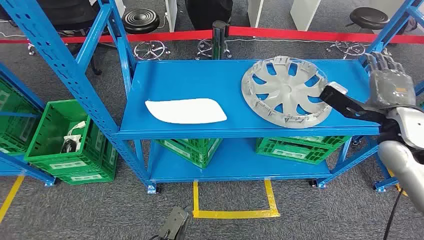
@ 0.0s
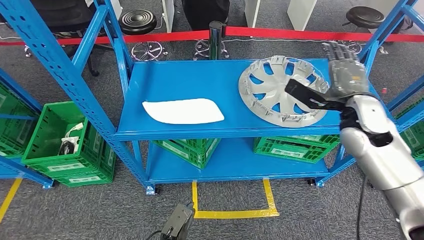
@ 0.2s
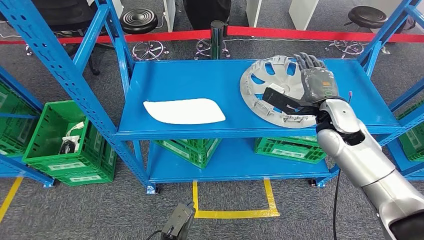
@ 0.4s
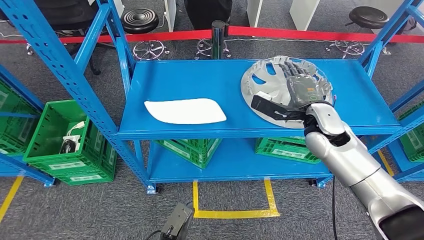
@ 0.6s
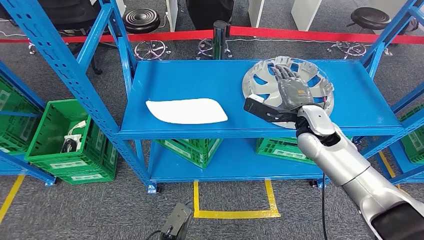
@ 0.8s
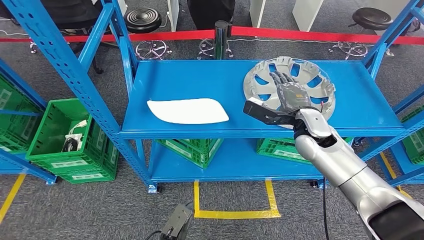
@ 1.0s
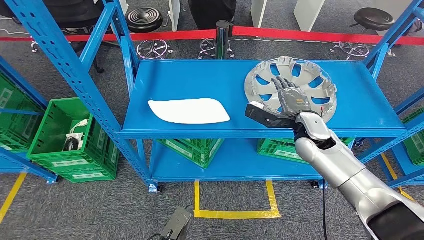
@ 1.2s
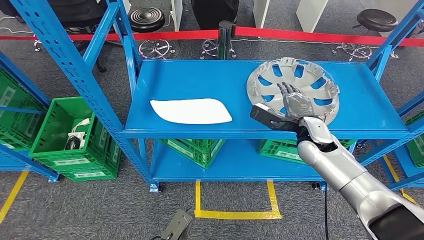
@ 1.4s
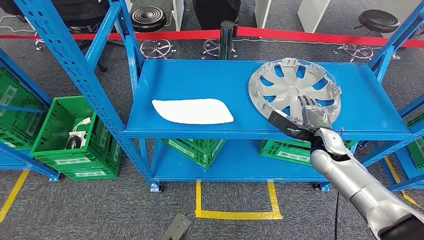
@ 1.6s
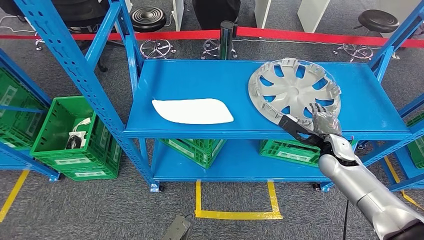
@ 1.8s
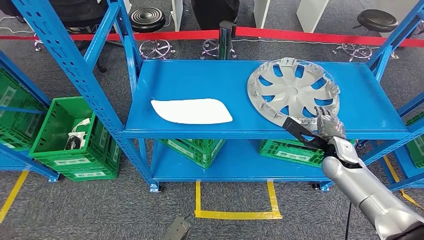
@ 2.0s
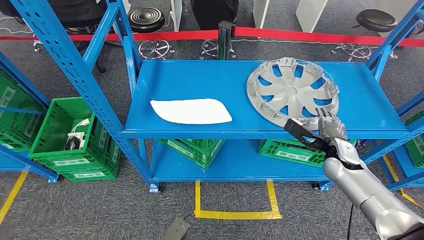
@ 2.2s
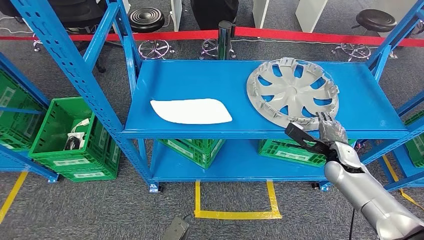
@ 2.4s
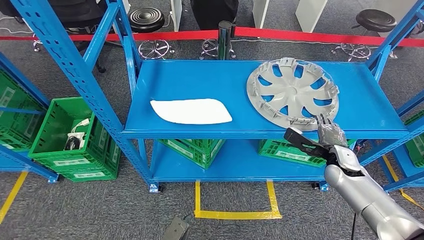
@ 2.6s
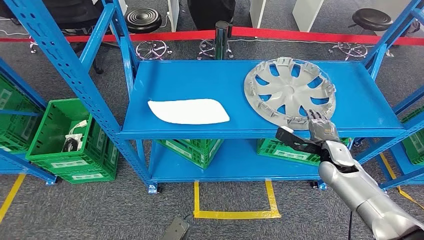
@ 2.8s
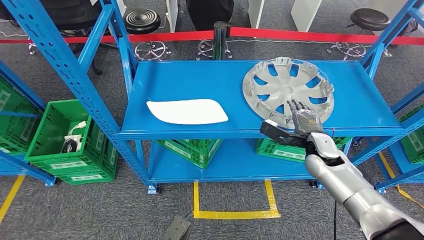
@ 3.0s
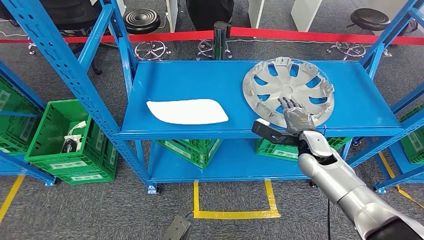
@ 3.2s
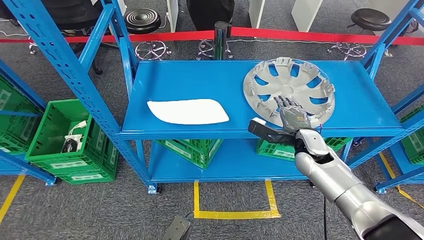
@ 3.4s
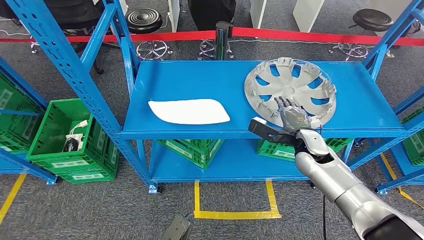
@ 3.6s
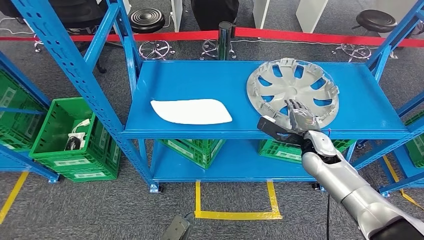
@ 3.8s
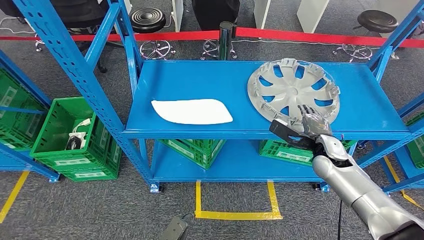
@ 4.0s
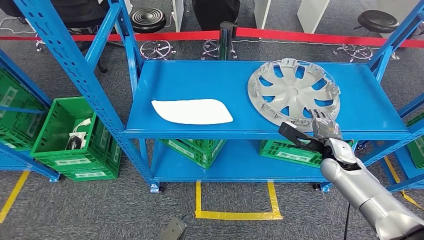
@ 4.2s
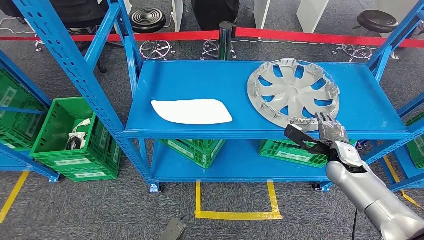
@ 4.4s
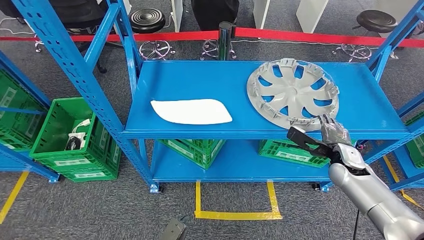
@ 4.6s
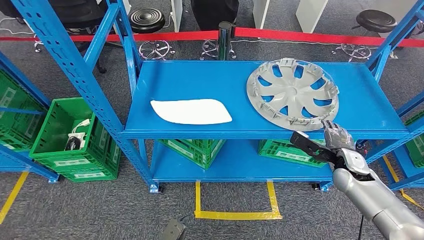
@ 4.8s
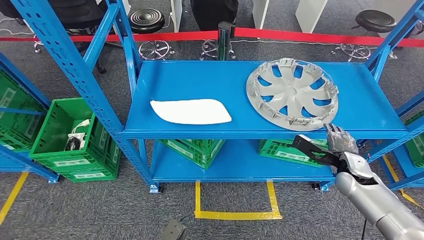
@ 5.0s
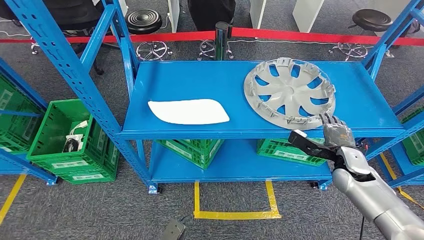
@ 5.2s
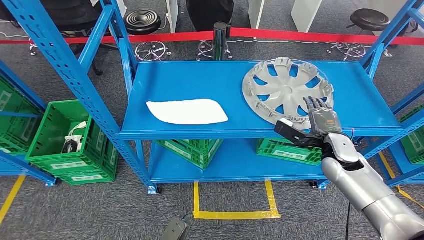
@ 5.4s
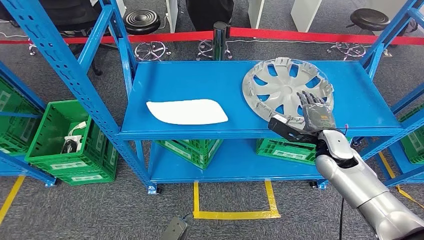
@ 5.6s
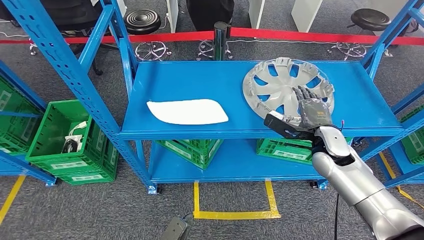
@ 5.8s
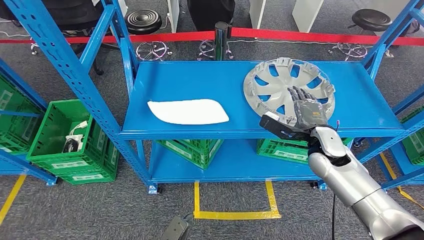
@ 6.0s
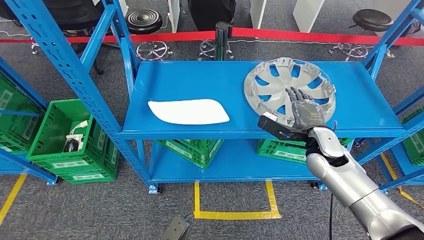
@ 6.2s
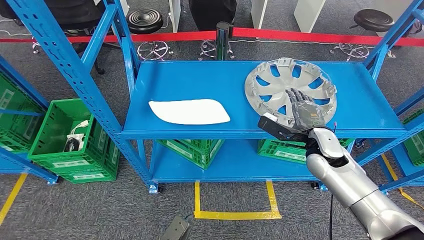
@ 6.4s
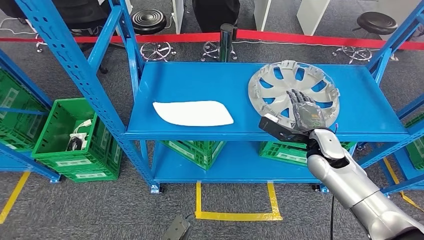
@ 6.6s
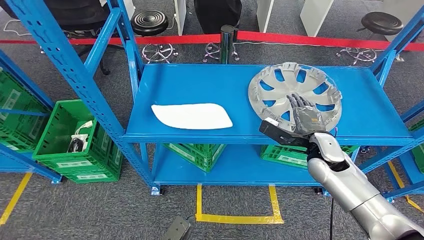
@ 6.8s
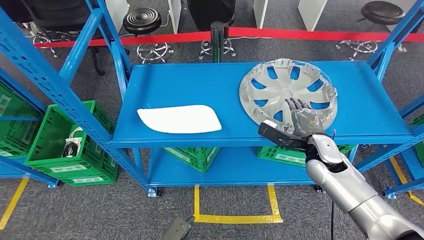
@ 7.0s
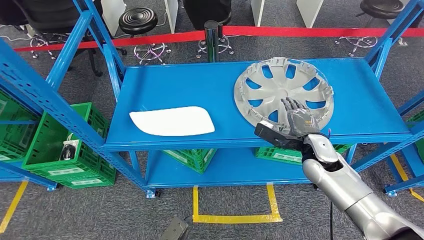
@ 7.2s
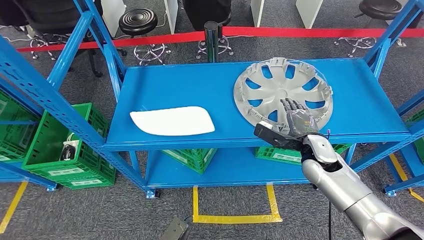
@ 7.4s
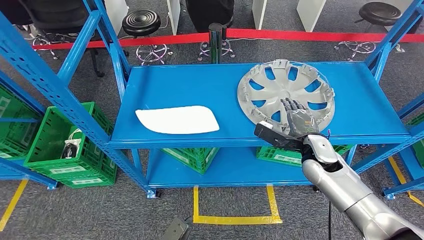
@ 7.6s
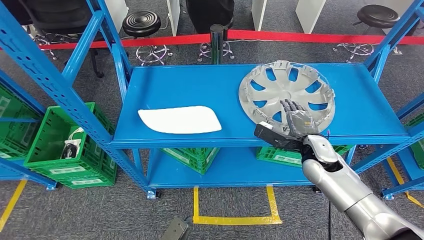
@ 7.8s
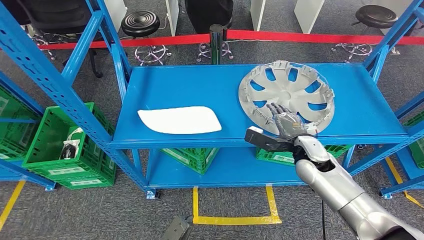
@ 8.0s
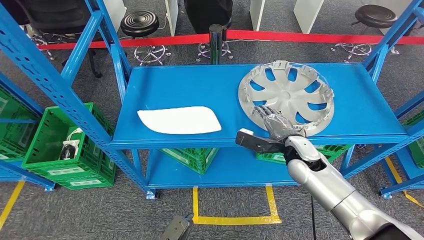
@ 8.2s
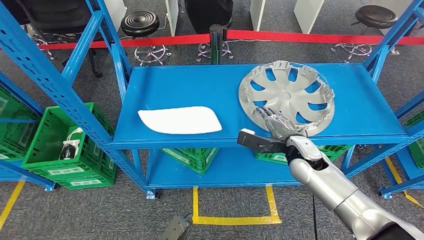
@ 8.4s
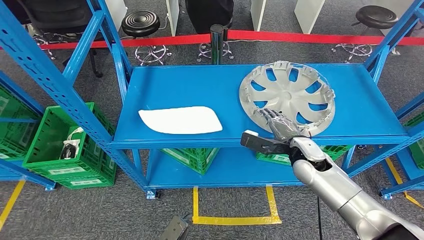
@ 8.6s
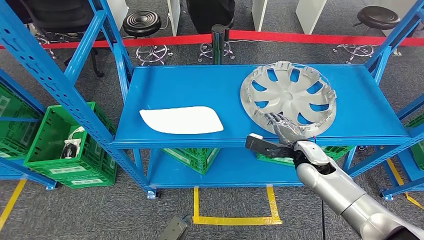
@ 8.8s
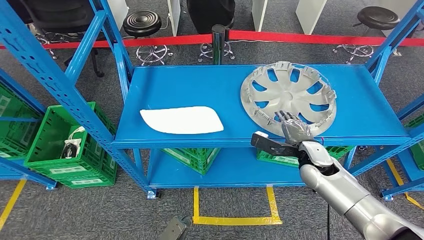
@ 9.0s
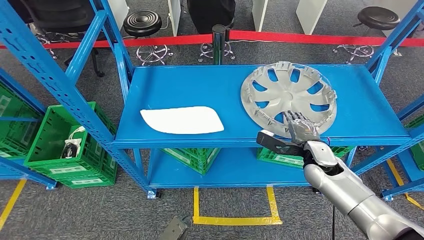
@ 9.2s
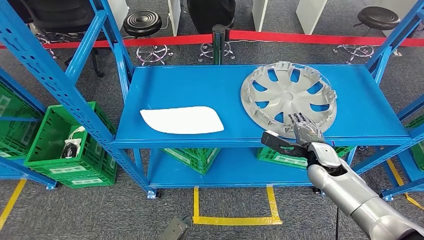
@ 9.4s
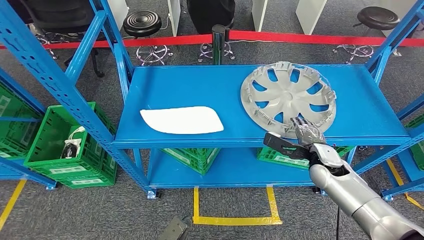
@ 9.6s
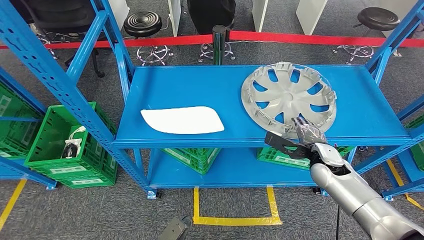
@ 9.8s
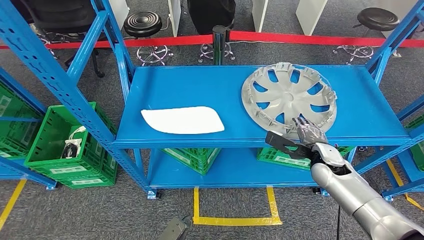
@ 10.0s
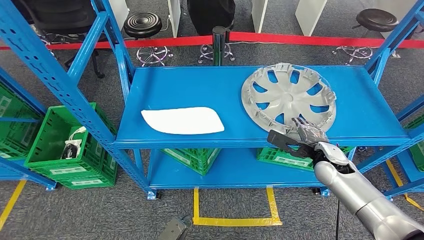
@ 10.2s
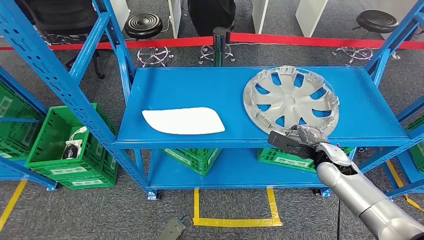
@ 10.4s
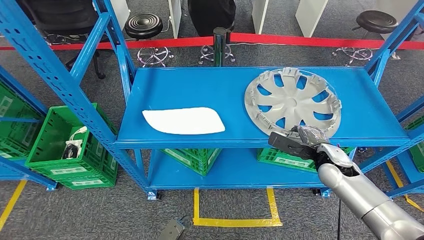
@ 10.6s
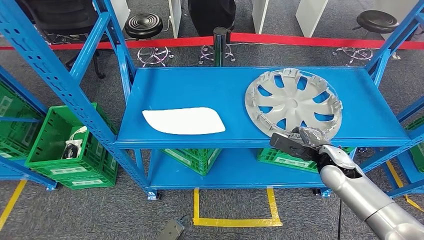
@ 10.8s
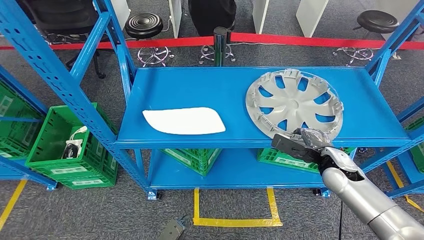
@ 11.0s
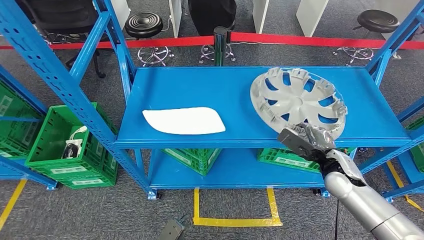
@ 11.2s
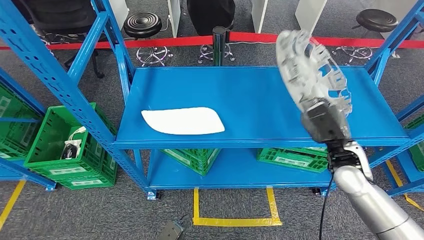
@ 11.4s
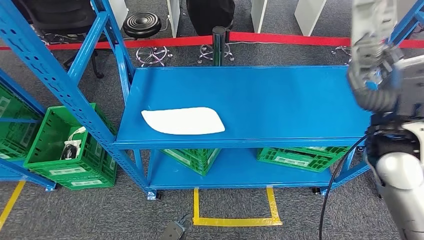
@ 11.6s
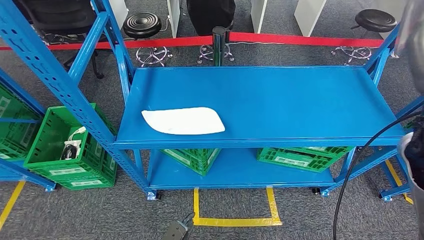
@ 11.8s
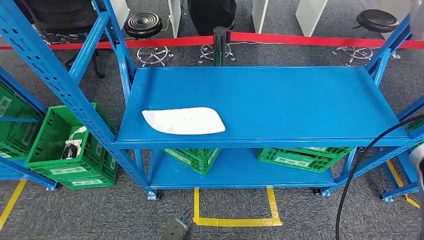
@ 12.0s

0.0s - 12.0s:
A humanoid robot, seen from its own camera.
7.6s - 10.4s: There are only small adjustments of the hands.
10.4s - 12.0s: The right hand travels upward by roughly 30 cm.

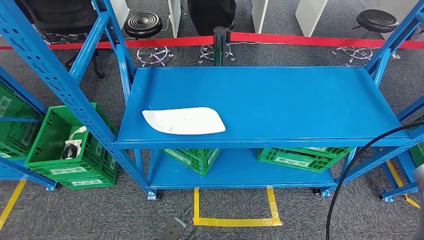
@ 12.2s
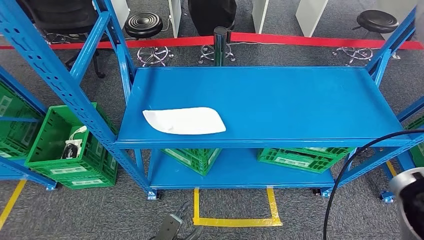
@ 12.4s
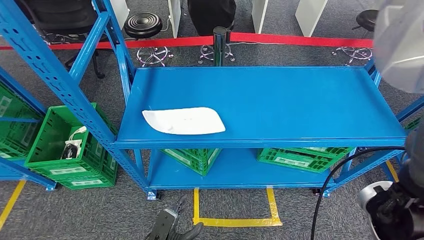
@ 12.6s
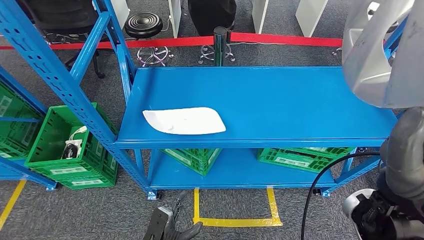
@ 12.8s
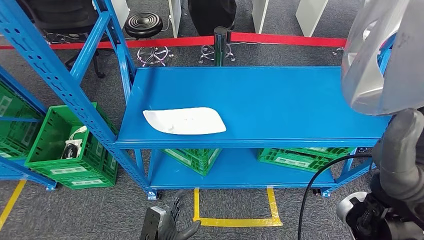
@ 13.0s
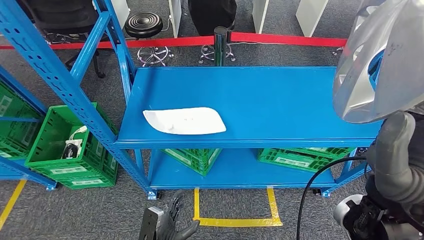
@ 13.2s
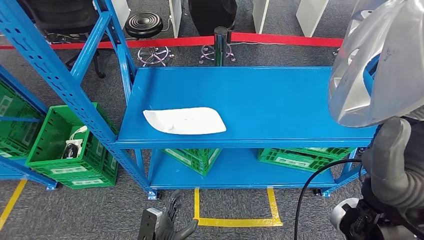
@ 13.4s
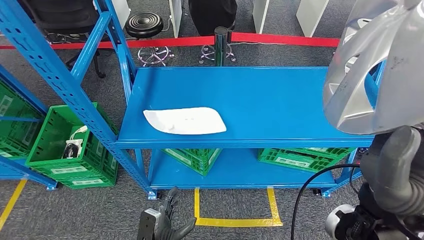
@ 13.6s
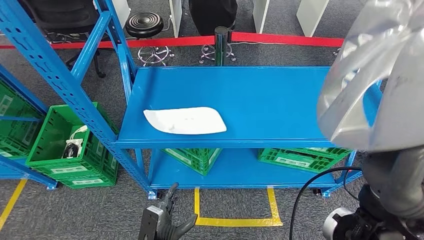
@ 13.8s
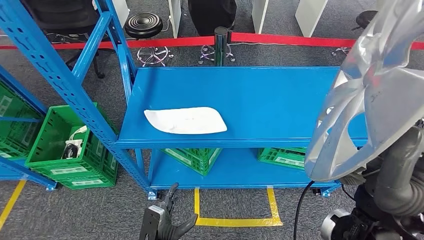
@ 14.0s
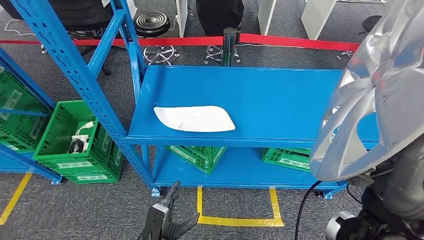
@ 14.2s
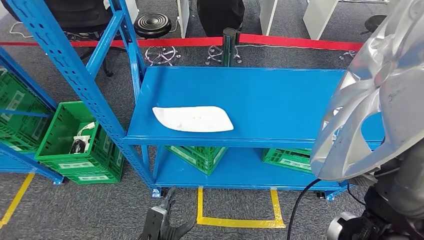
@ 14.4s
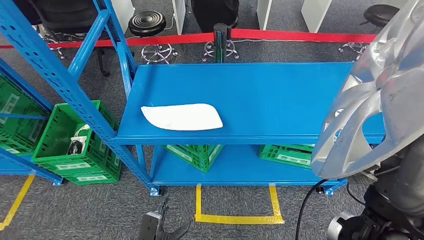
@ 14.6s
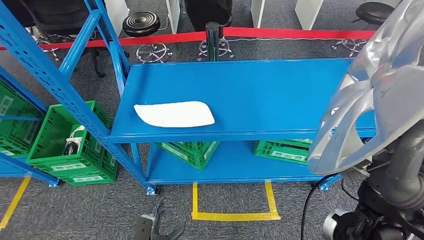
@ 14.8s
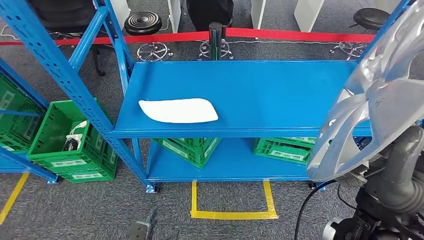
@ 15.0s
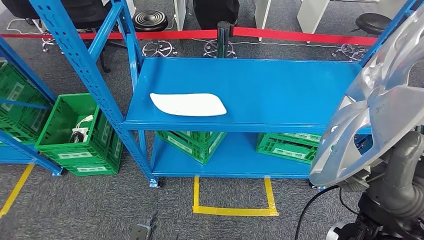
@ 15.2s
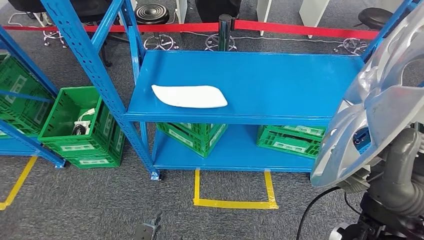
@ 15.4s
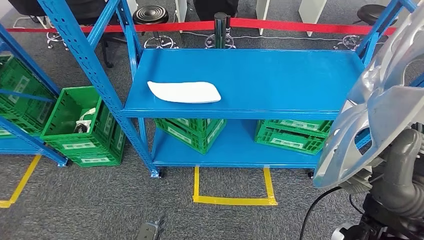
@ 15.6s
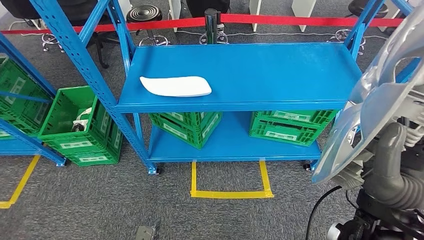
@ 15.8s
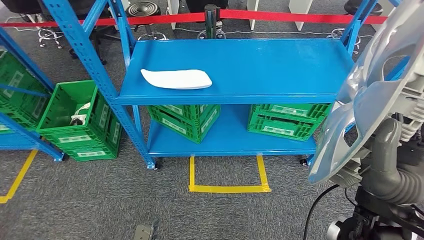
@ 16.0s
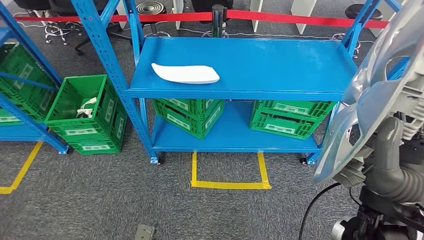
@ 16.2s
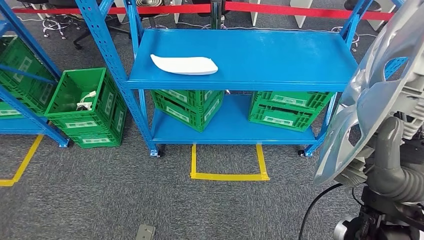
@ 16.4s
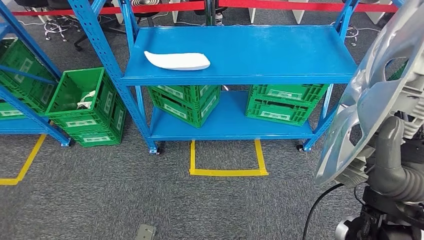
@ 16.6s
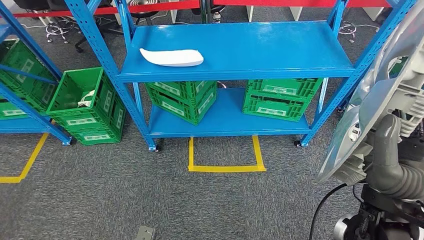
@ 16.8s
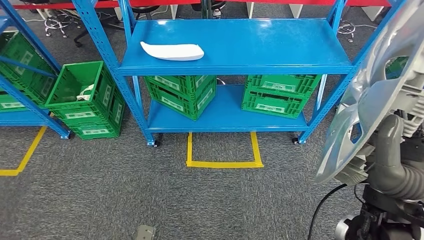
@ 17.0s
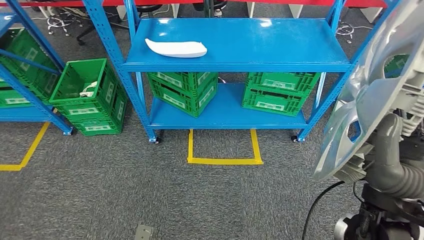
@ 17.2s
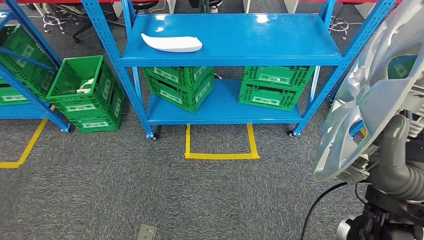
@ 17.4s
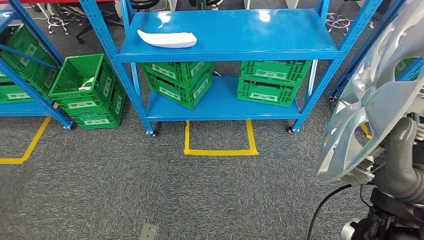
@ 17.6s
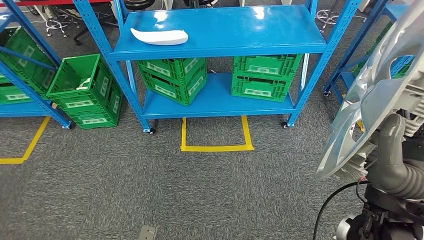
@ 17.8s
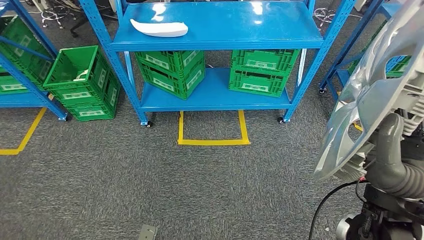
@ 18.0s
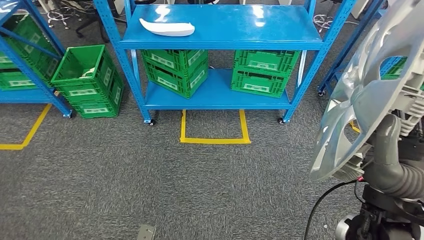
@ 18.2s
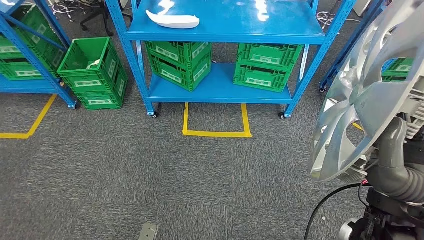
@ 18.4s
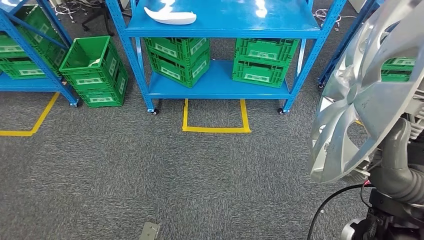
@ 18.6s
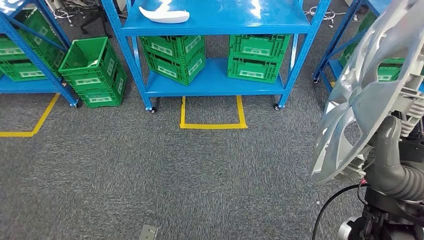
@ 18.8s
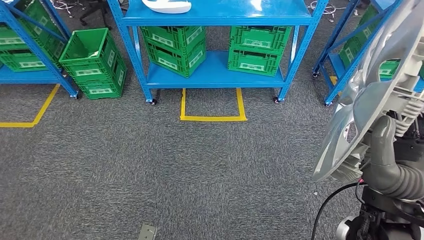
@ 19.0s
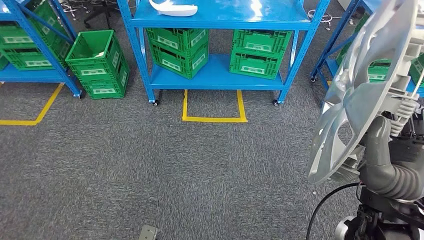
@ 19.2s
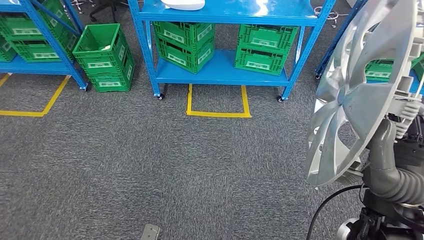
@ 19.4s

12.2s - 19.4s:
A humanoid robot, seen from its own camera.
12.2s - 13.6s: The right hand heads downward and to the left, covering approximately 15 cm.
